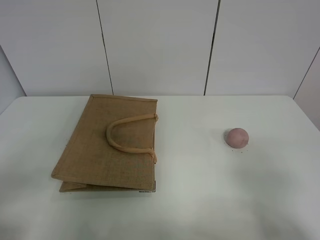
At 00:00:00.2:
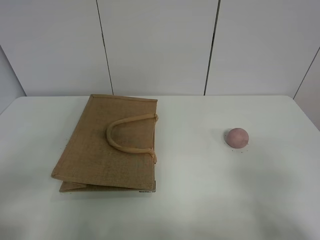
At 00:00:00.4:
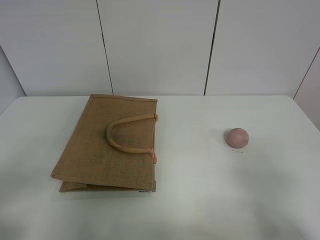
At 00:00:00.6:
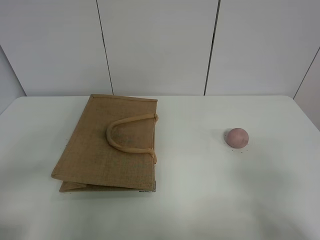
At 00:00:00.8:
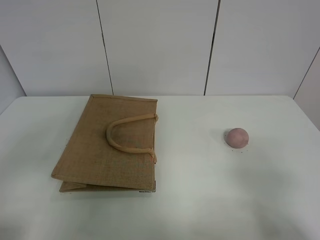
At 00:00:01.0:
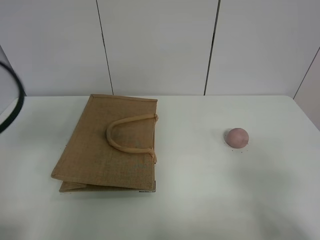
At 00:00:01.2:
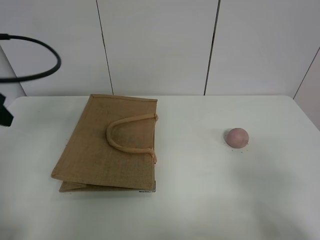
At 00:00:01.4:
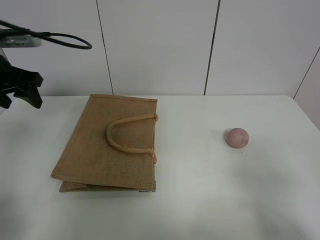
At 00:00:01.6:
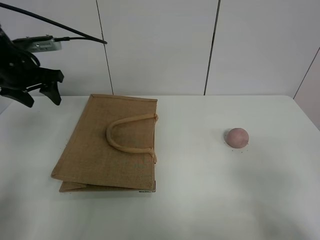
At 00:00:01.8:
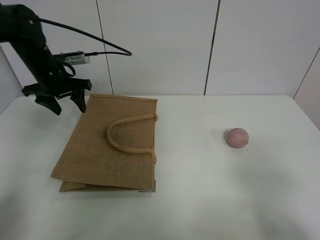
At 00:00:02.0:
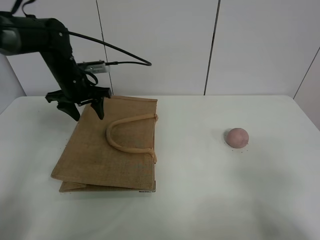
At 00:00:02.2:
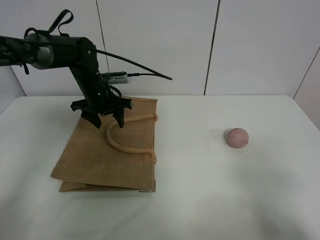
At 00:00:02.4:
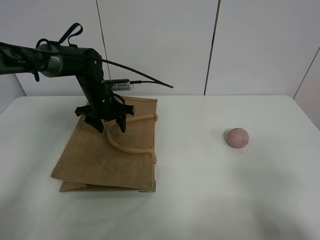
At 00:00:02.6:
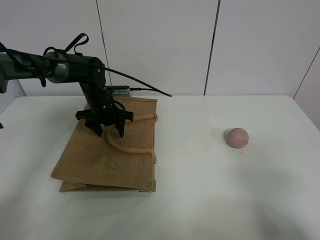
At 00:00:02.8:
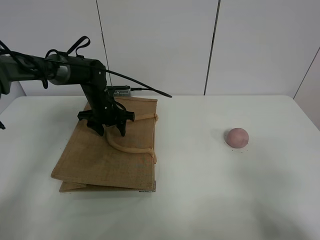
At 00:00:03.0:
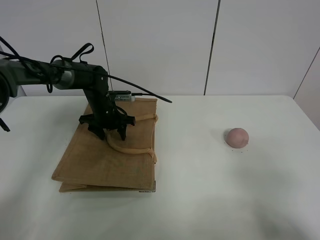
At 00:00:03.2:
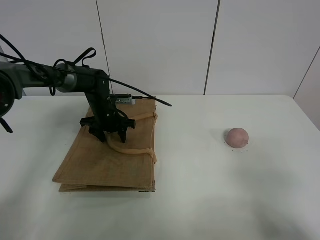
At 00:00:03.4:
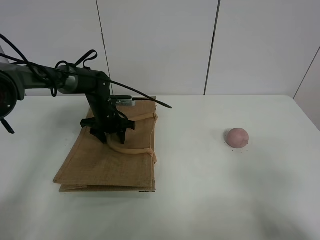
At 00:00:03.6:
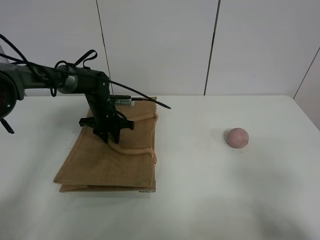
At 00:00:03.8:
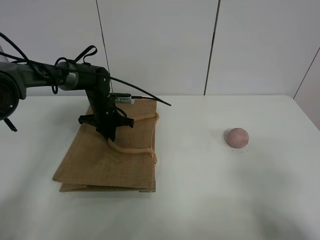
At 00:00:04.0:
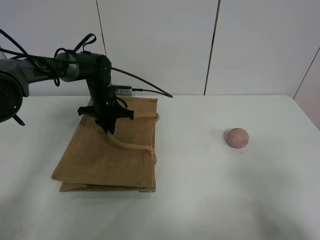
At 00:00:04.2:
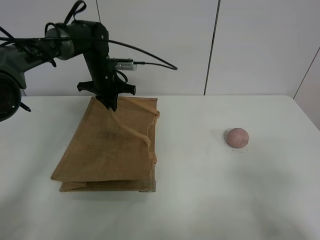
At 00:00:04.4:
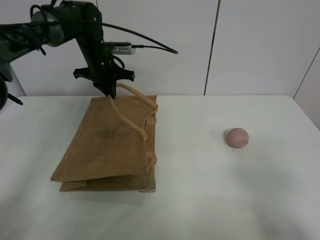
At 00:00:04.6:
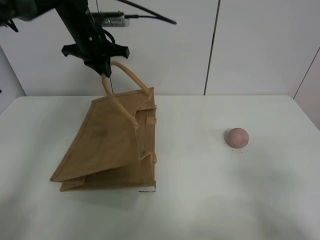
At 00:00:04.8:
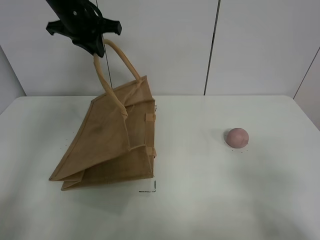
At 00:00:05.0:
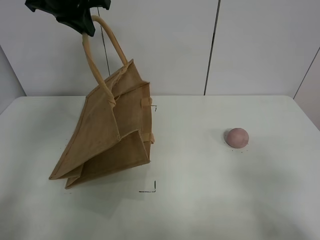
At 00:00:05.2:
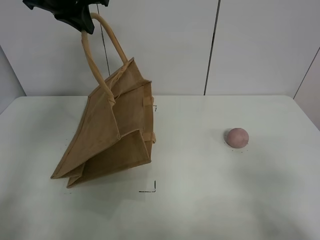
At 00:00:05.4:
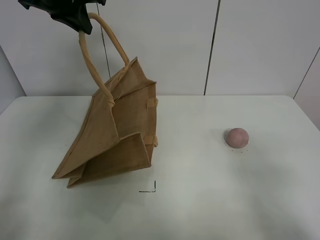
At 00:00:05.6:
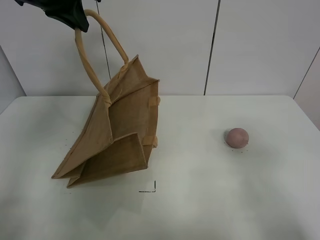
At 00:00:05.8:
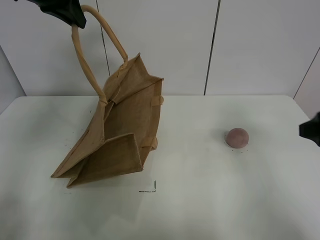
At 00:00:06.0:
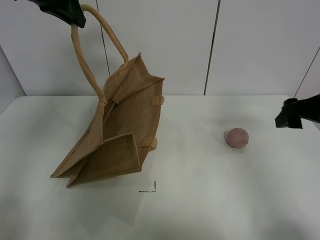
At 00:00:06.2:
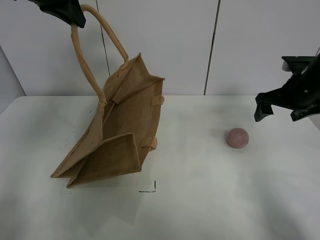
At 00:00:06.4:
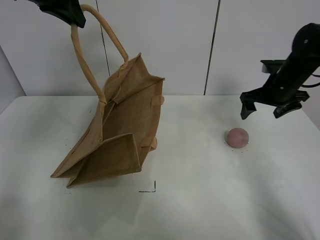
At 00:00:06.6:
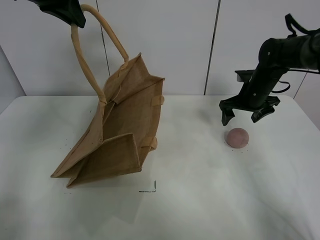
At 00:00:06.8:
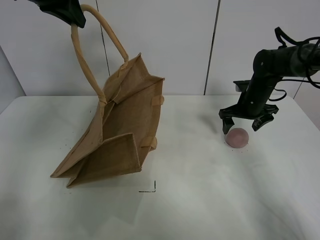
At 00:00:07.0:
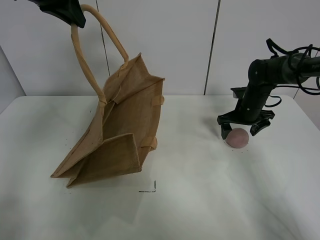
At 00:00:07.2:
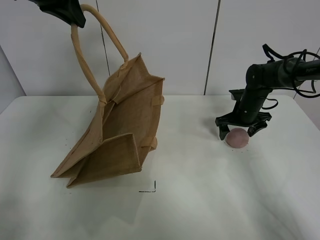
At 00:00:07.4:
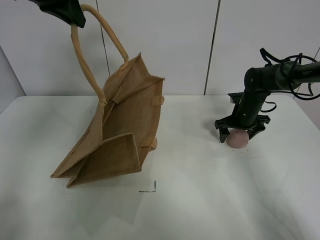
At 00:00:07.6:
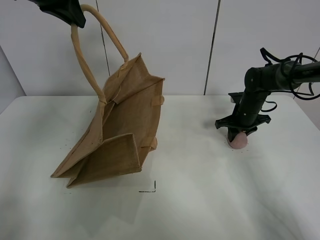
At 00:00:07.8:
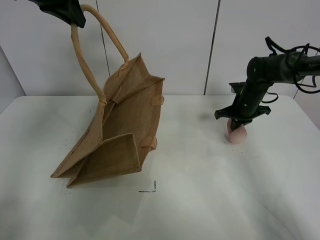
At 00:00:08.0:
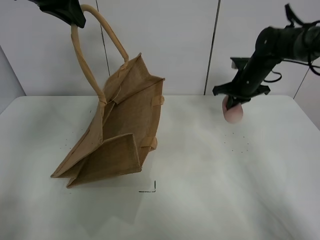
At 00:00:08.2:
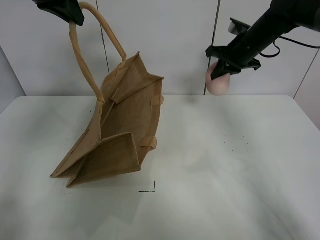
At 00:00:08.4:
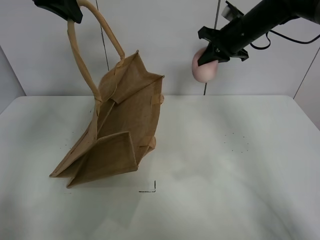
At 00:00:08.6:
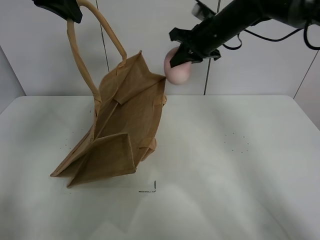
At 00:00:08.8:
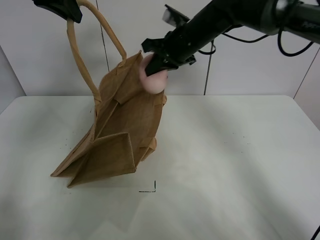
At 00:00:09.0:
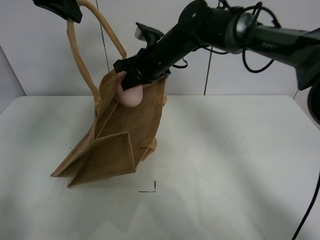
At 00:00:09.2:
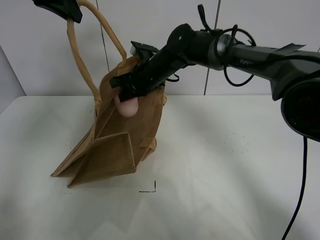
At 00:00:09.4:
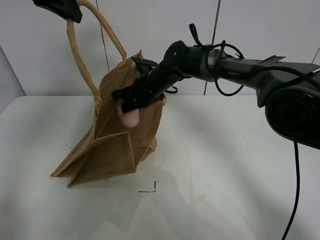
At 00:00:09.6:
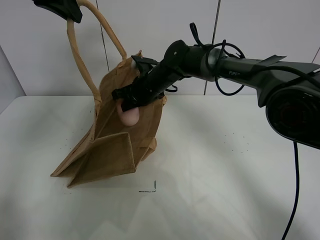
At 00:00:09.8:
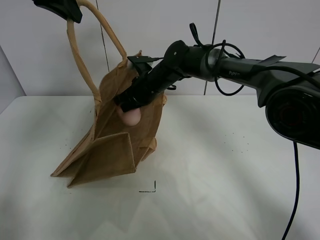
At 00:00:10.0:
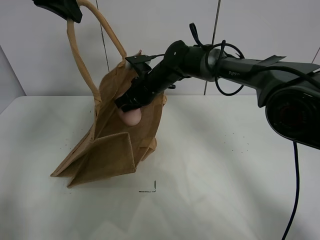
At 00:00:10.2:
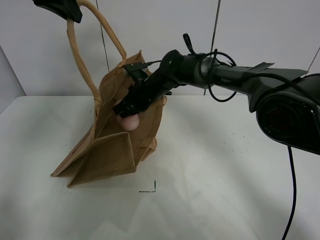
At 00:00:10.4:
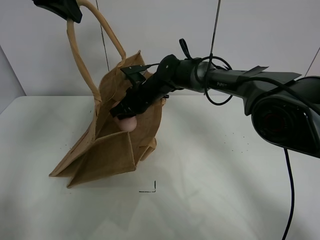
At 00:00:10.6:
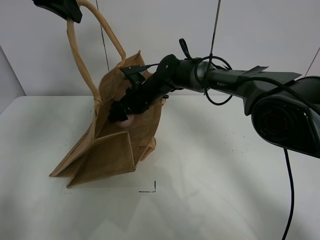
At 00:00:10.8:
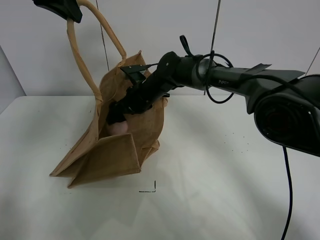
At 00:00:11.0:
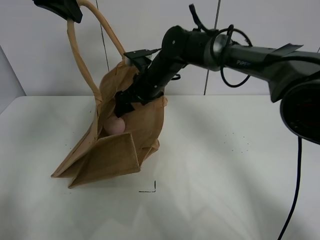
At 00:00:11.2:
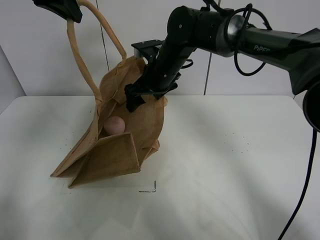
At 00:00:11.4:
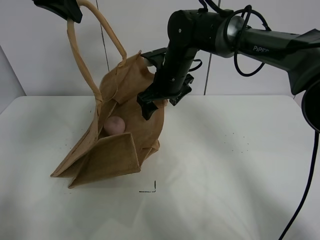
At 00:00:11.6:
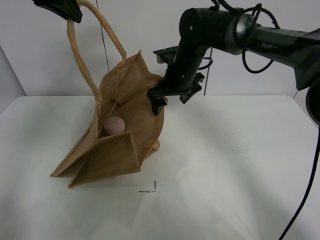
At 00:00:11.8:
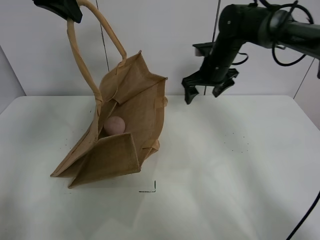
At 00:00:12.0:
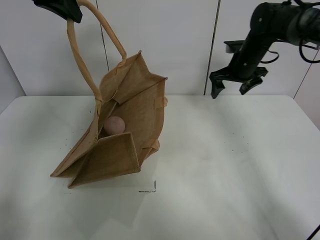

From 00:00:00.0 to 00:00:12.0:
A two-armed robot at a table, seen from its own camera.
Task of the whole recording: open the brown linen bag and put the peach in the bag.
Step, from 00:00:00.0 to 00:00:05.2: Lift the handbag with left gripper.
Step, from 00:00:05.4 to 00:00:07.6: Grasp the peach with right gripper.
Step, from 00:00:07.8 to 00:00:11.6: Place the peach in the handbag with right gripper.
From 00:00:00.0 to 00:00:01.6: The left gripper goes roughly 40 cm forward.
From 00:00:01.6 to 00:00:03.0: The left gripper is displaced downward and to the right by about 20 cm.
From 00:00:03.0 to 00:00:04.4: The left gripper shifts approximately 15 cm upward, and closes up.
From 00:00:04.4 to 00:00:06.0: The right gripper shifts about 25 cm forward; the left gripper travels upward and backward by about 20 cm.
From 00:00:06.0 to 00:00:07.6: The right gripper shifts roughly 25 cm forward and downward, and closes up.
From 00:00:07.6 to 00:00:09.0: The right gripper goes roughly 30 cm to the left and upward.
From 00:00:09.0 to 00:00:10.4: The right gripper moves downward, about 10 cm.
From 00:00:10.4 to 00:00:12.0: The right gripper goes about 25 cm to the right, and opens up.

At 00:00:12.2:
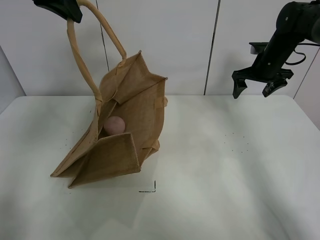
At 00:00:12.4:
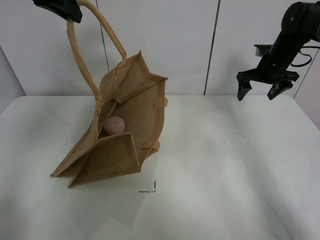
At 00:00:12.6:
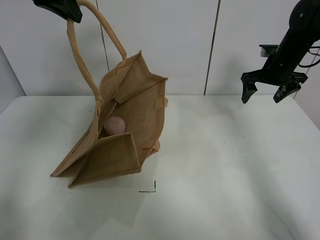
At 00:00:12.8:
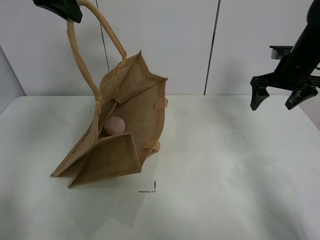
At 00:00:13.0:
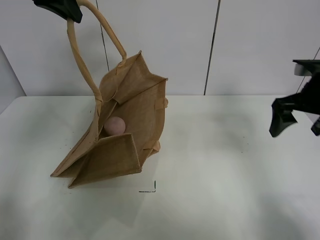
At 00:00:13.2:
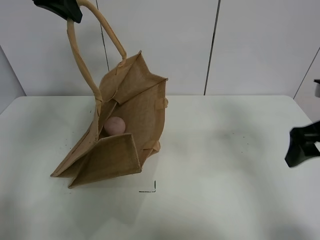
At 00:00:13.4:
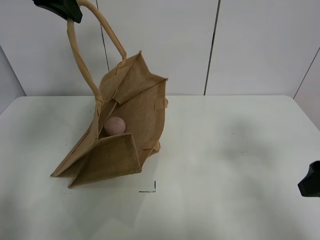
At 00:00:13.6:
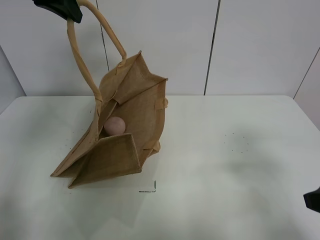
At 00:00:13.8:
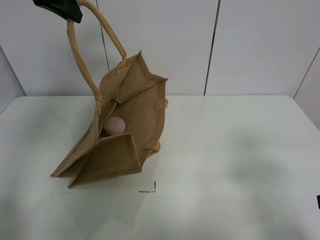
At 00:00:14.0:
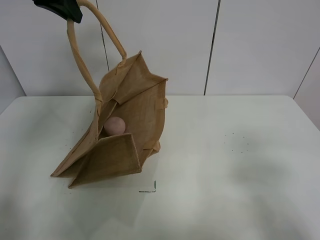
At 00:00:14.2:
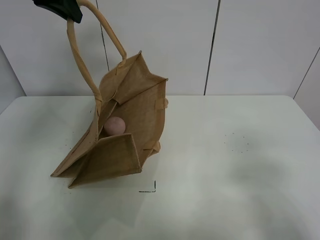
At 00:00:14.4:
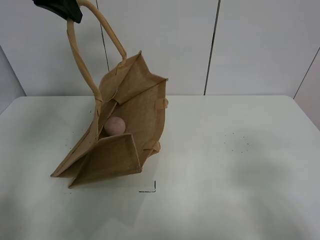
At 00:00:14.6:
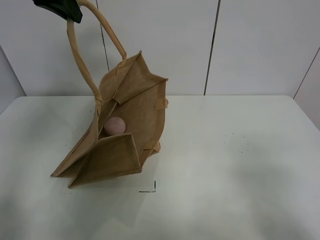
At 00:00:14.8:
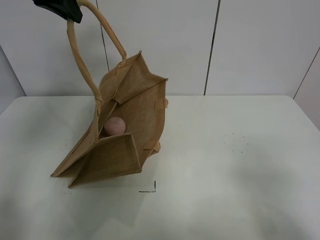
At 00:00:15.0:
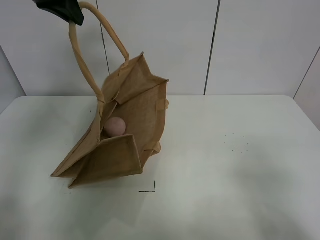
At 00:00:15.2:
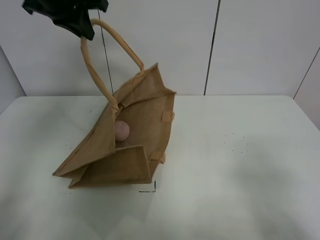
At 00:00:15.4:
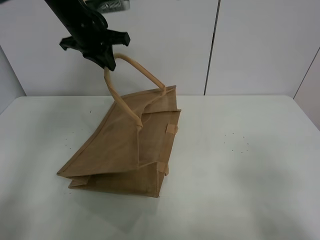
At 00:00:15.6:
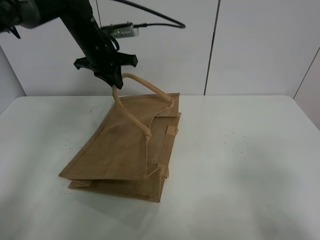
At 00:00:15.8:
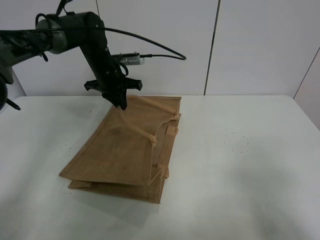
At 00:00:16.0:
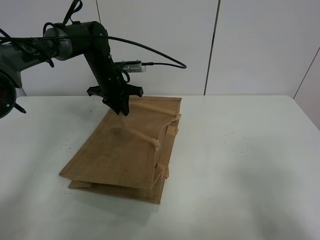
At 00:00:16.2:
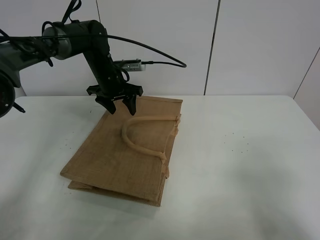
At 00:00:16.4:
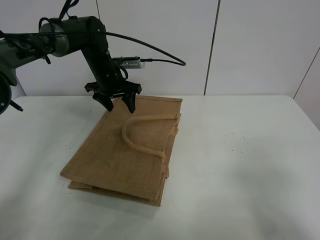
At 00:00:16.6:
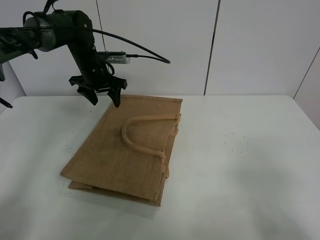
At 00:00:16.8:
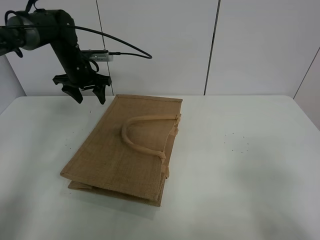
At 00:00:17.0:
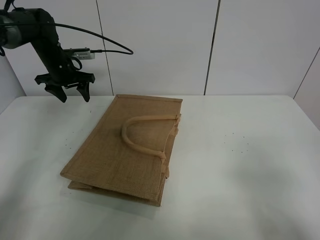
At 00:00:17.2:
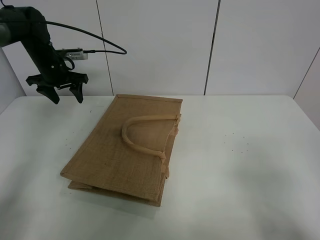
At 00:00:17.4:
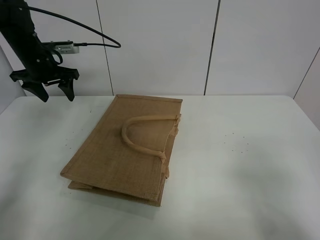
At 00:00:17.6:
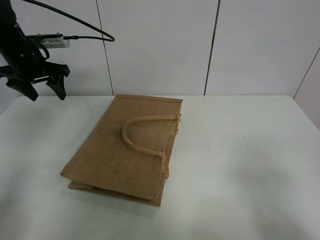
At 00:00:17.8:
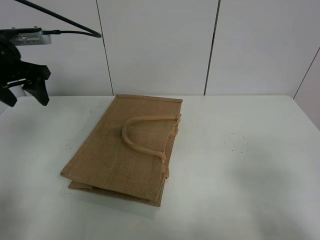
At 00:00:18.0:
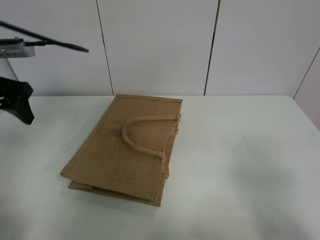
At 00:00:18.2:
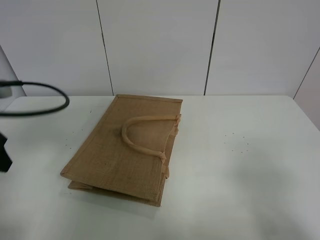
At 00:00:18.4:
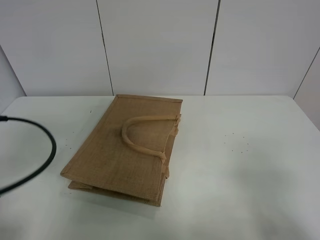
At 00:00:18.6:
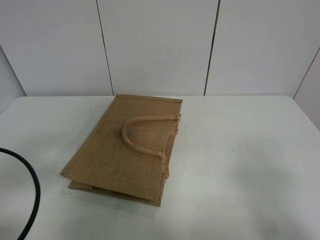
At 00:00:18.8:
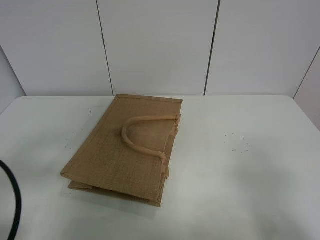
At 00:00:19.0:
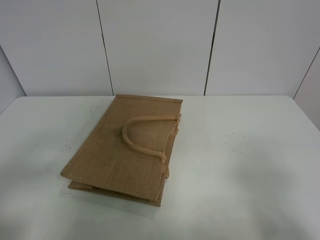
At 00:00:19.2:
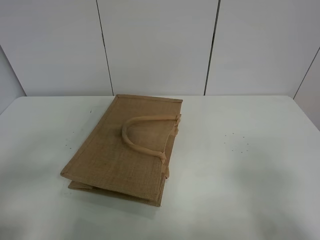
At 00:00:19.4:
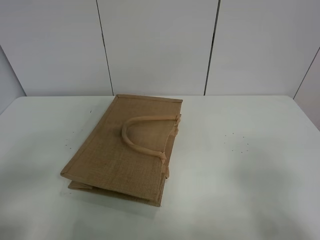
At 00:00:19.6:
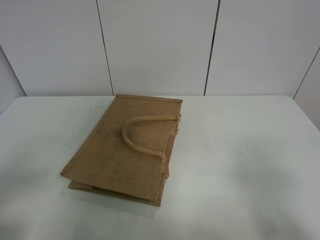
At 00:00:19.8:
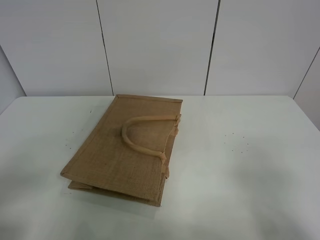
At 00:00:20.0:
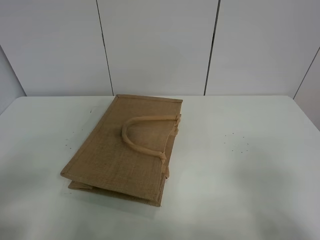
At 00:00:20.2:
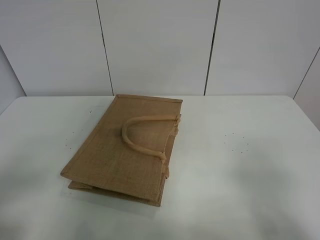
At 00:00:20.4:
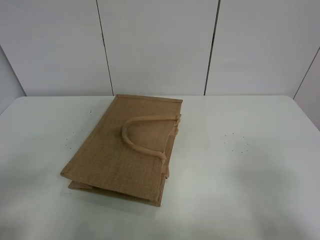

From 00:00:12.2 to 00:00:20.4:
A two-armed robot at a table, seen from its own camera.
Task of the whole recording: open the brown linen bag and put the peach in the bag.
Step, from 00:00:12.2 to 00:00:16.6: Put down the handbag with left grippe.
From 00:00:12.2 to 00:00:13.8: The right gripper shifts some 40 cm backward.
From 00:00:13.8 to 00:00:15.4: The right gripper travels backward by some 5 cm. Meanwhile the left gripper is displaced downward and forward by about 15 cm.
From 00:00:15.4 to 00:00:17.2: The left gripper moves to the left and downward, about 15 cm, and opens.
From 00:00:17.2 to 00:00:18.8: The left gripper is displaced backward by approximately 40 cm.
From 00:00:18.8 to 00:00:20.4: The left gripper moves backward, about 5 cm.
